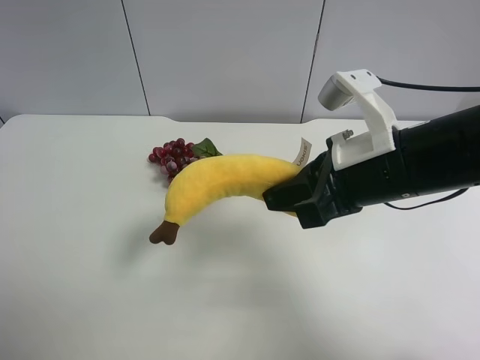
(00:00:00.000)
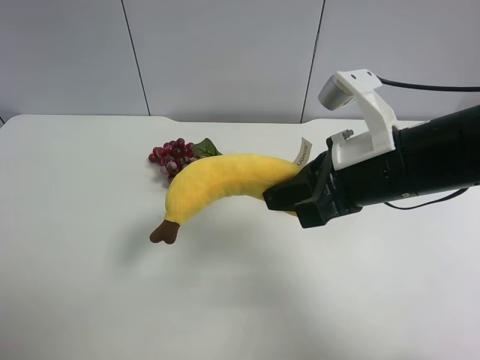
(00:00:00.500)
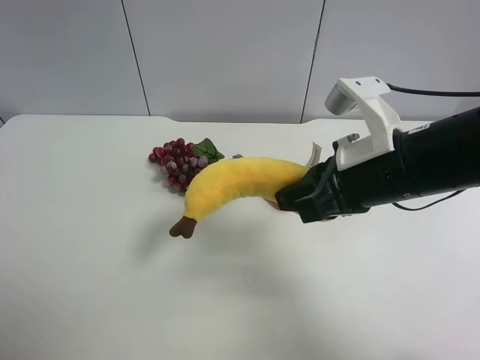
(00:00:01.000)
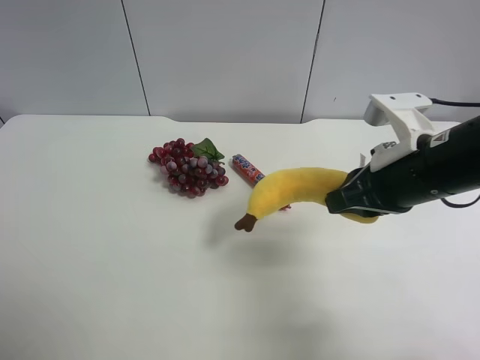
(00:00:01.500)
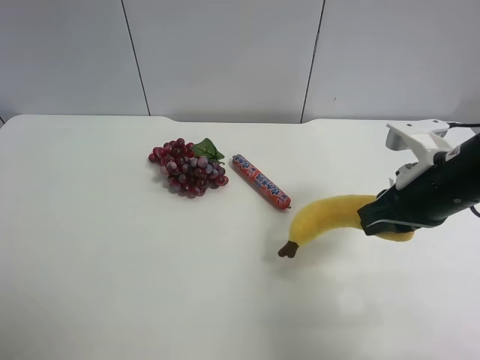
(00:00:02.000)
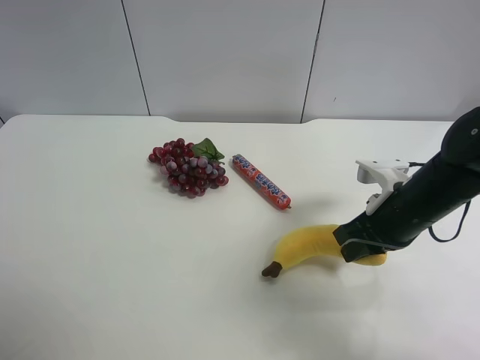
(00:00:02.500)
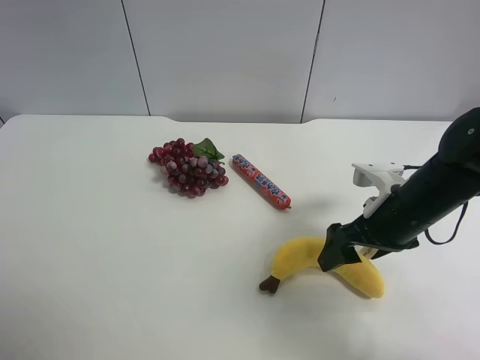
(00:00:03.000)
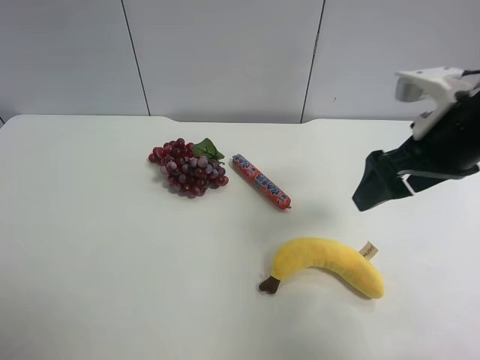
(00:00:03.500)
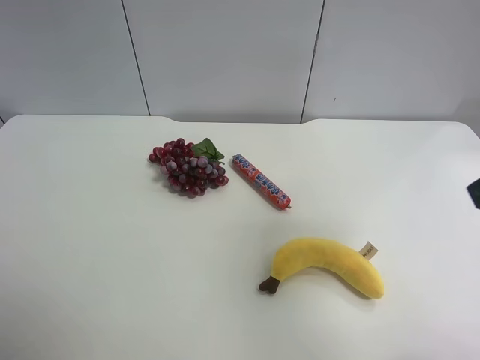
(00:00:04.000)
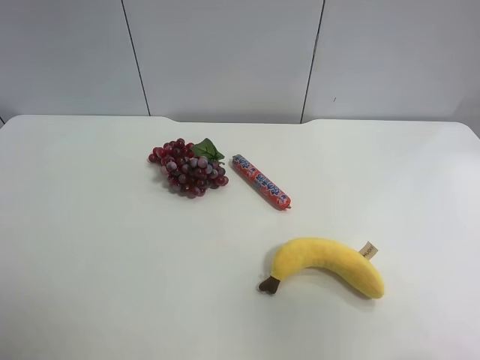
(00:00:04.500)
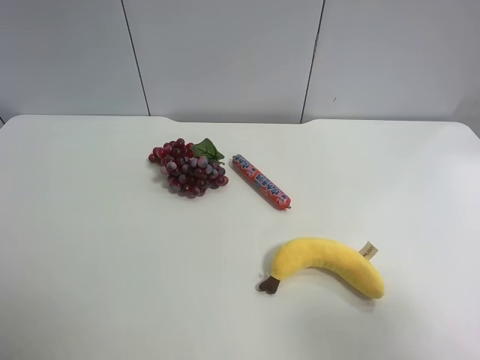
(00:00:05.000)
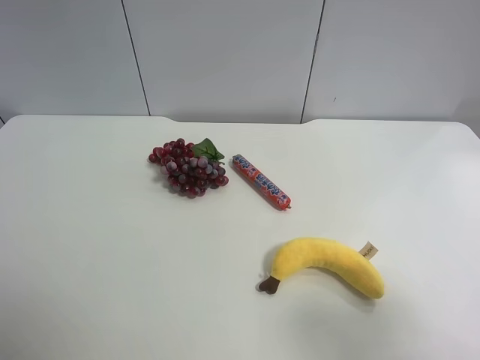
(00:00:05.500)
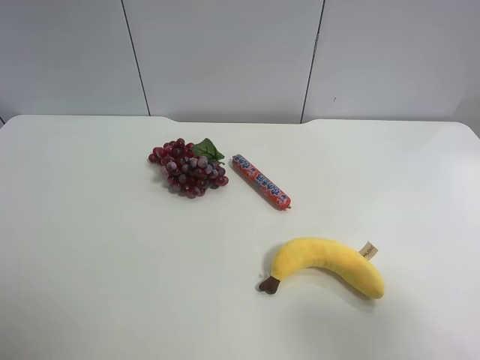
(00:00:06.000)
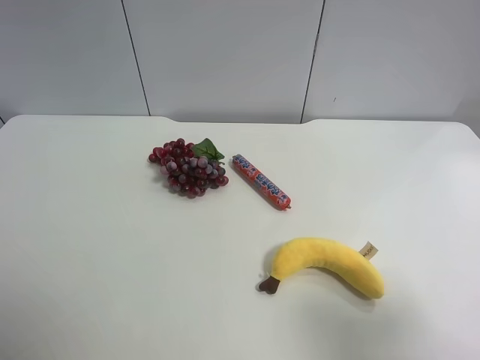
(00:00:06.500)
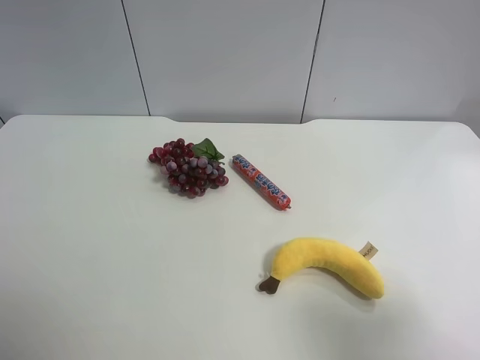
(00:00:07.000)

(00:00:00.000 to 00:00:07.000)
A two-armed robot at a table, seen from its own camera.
Task of the whole recording: use the left gripper to pick up the item and transfer it from the left gripper to the right gripper.
00:00:00.000 - 00:00:02.000: The right gripper heads to the right, covering approximately 10 cm.
00:00:02.000 - 00:00:03.500: The right gripper shifts roughly 5 cm upward, and opens.
00:00:03.500 - 00:00:05.000: The right gripper travels backward by some 25 cm.
